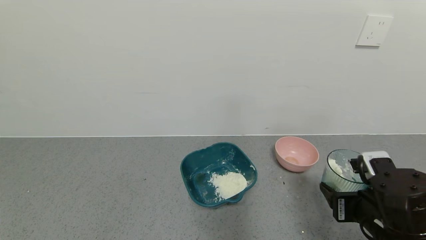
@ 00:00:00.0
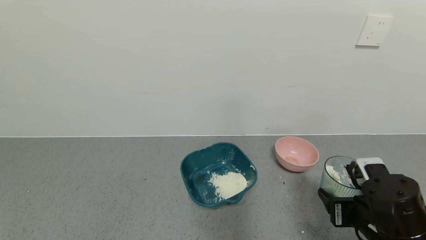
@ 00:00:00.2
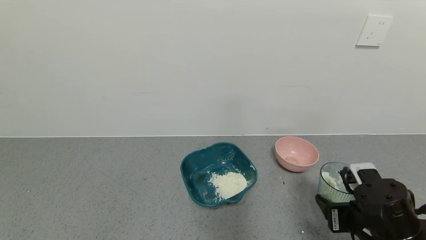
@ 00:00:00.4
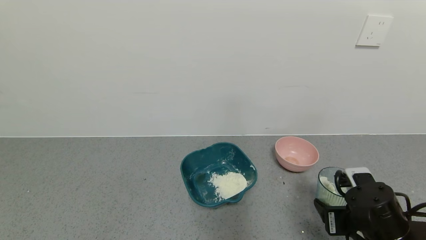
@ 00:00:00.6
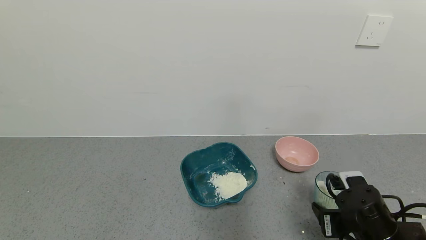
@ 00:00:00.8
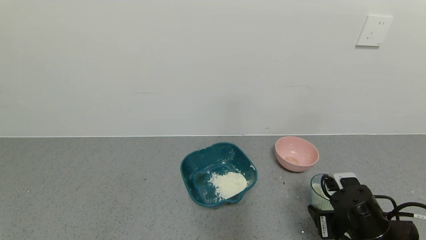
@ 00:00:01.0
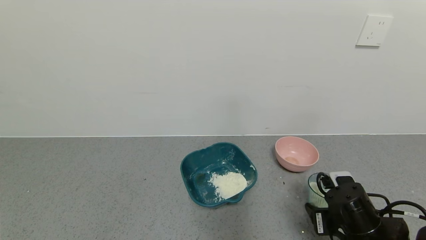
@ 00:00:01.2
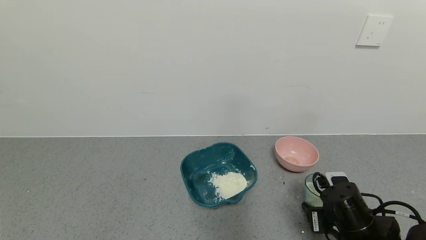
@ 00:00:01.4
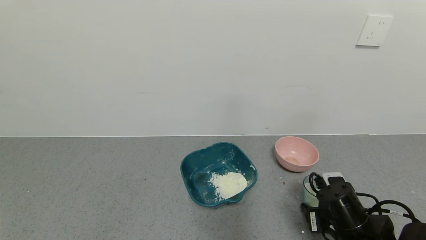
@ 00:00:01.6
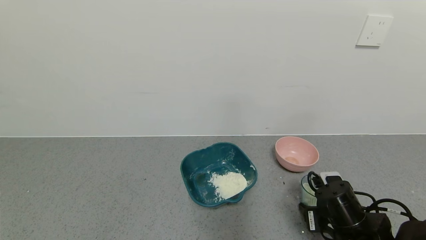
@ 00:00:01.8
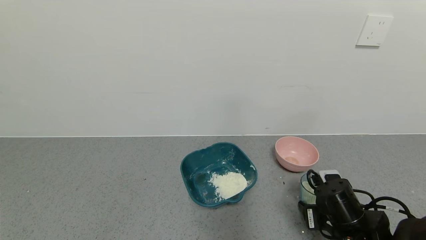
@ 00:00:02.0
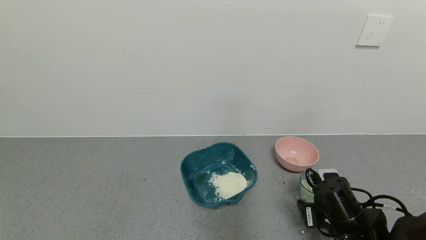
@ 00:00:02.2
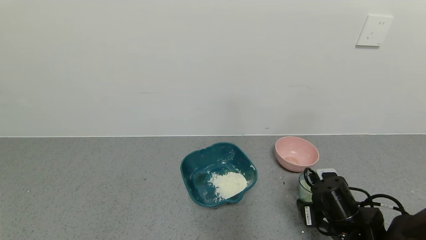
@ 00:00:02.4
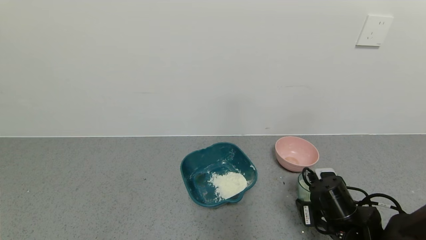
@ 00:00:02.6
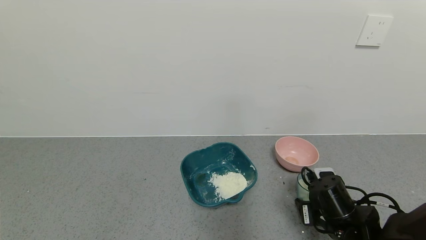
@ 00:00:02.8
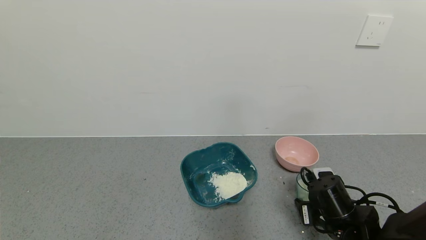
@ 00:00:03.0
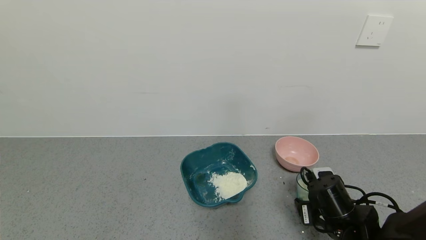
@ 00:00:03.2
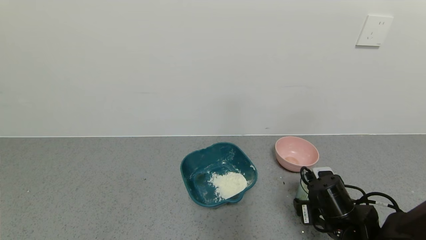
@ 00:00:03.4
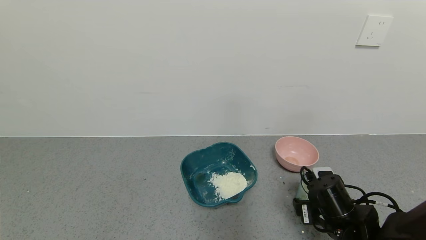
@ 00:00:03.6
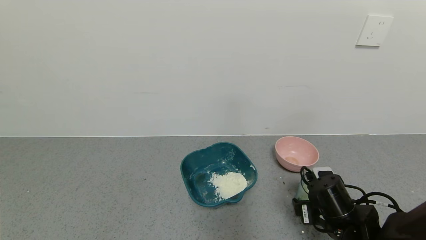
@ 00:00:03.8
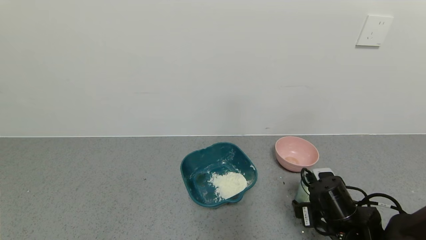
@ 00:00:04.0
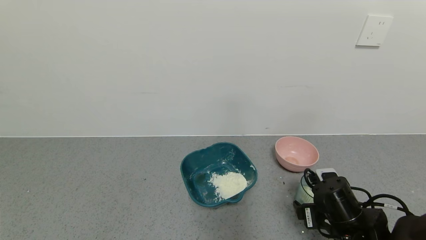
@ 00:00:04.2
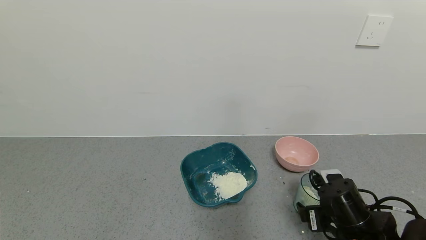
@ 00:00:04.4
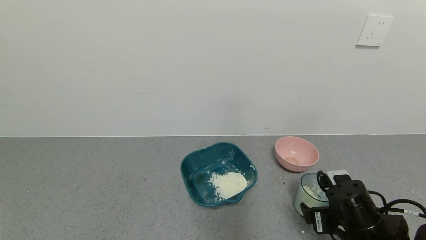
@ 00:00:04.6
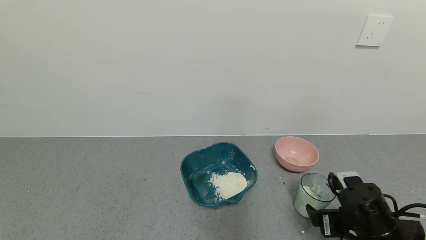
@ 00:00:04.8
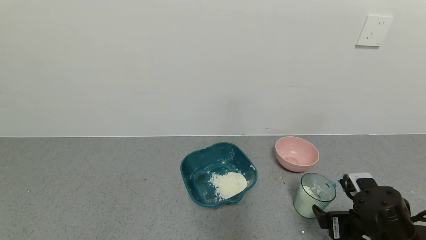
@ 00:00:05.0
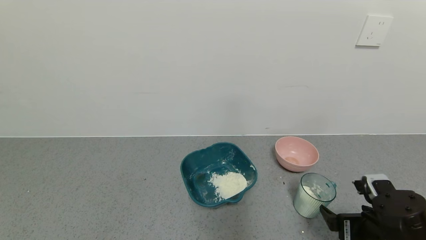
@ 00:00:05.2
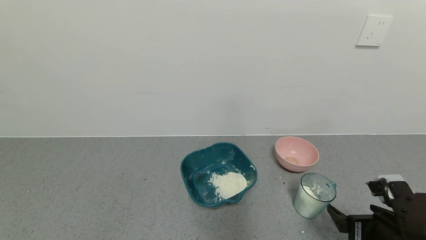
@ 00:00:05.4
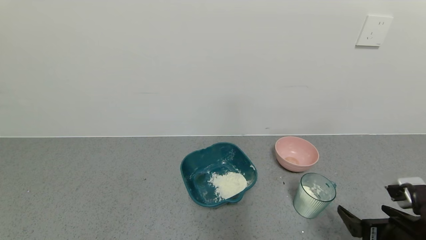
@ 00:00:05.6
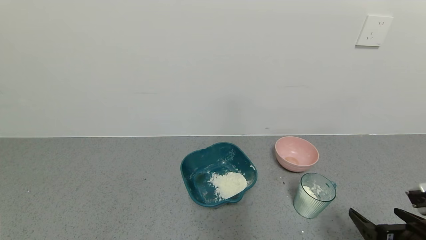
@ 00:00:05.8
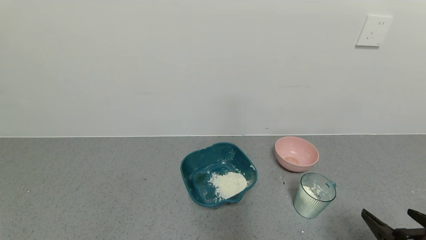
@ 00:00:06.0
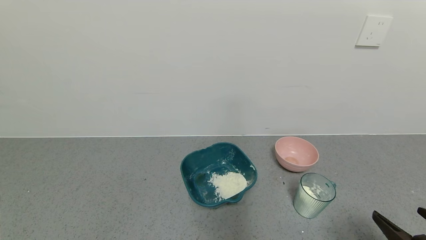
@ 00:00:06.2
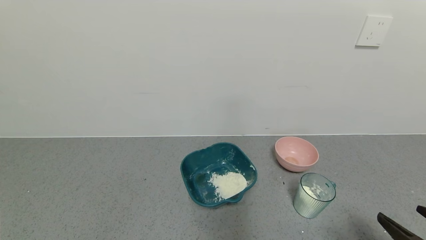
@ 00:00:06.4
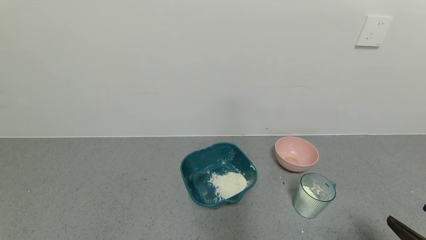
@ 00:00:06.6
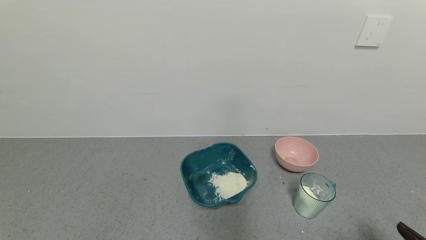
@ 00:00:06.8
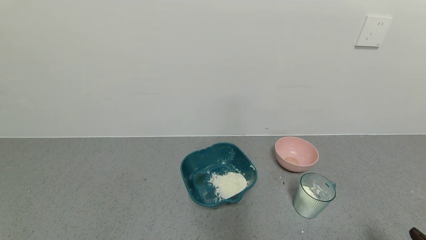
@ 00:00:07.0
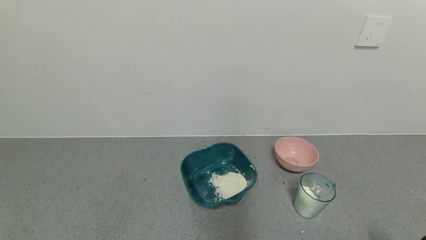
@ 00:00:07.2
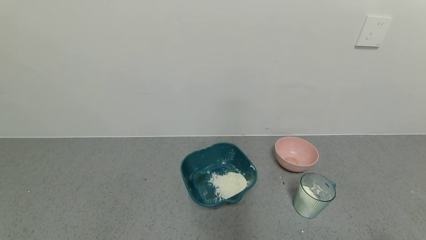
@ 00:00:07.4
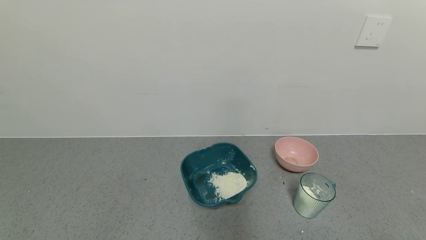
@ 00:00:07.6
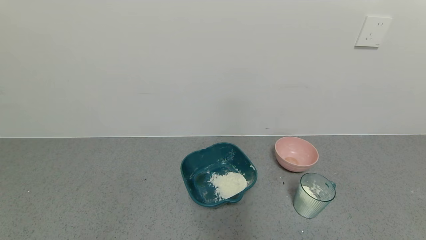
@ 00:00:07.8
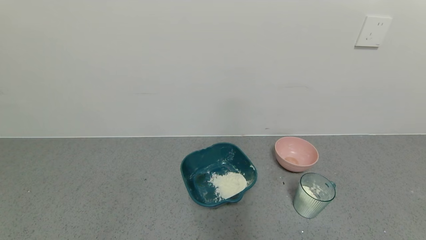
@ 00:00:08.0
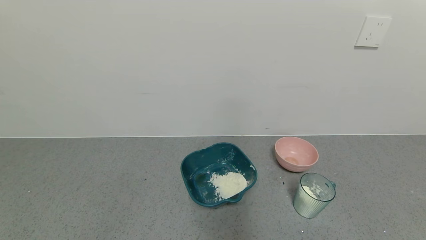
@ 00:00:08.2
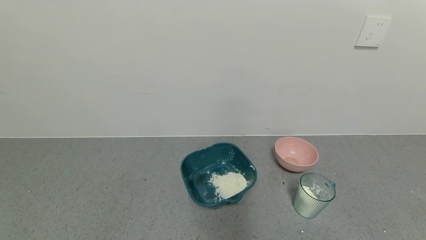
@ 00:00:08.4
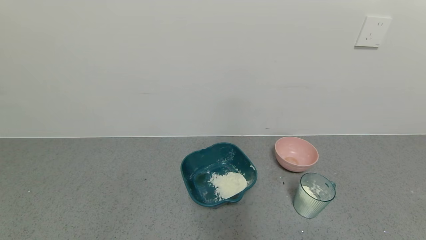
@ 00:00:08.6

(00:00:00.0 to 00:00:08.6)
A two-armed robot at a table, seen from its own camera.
Task of the whole recording: use a gripper to pick up the cup and pour the powder into a bowl or tray.
Step, 00:00:00.0 - 00:00:04.8: Place the glass cup down with the right gripper.
00:00:00.0 - 00:00:01.4: The right gripper travels downward by about 5 cm.
00:00:01.4 - 00:00:02.8: The grippers stay close to where they were, moving slightly.
00:00:02.8 - 00:00:04.4: The right gripper opens.
00:00:04.4 - 00:00:05.8: The right gripper heads backward, to the right and upward, covering about 15 cm.
00:00:05.8 - 00:00:07.2: The right gripper goes approximately 10 cm backward and to the right.
